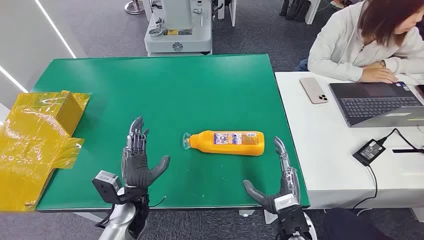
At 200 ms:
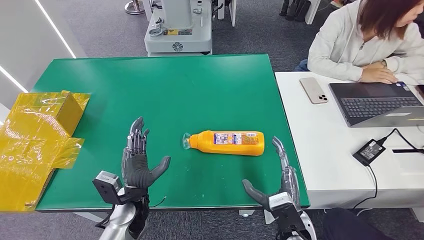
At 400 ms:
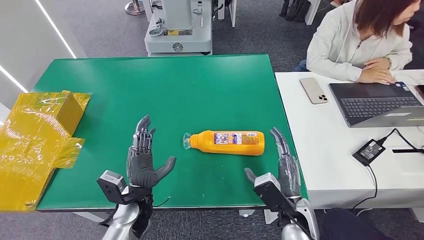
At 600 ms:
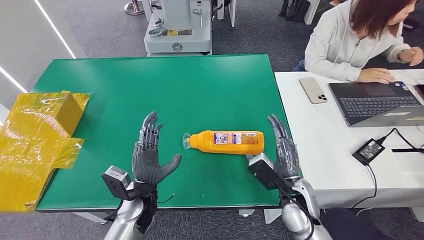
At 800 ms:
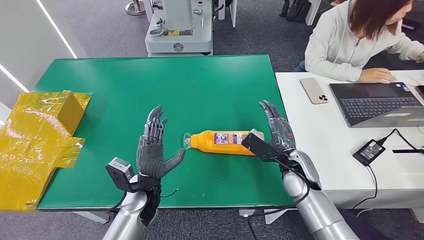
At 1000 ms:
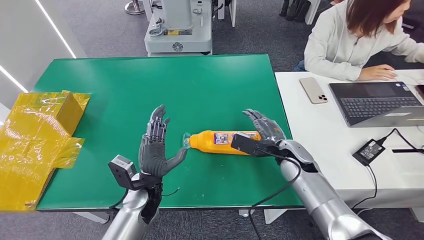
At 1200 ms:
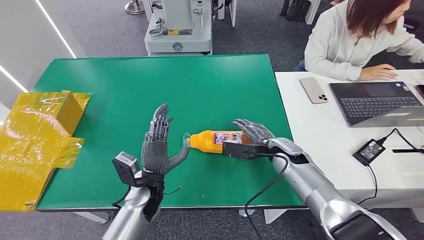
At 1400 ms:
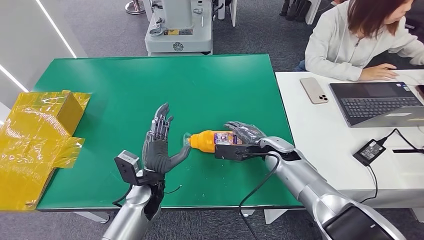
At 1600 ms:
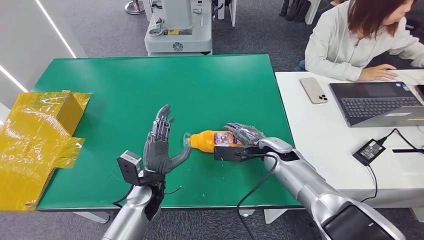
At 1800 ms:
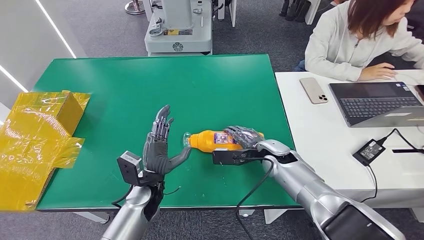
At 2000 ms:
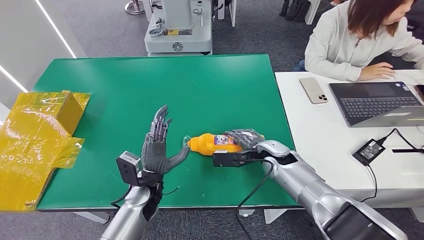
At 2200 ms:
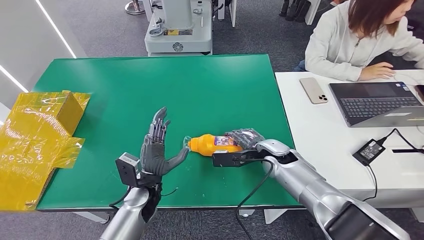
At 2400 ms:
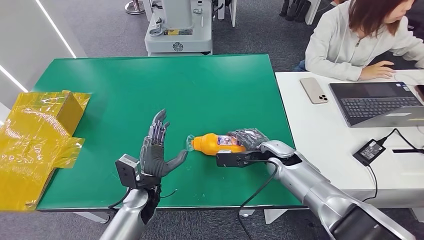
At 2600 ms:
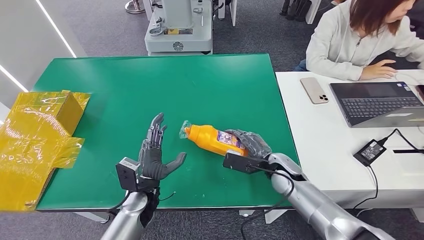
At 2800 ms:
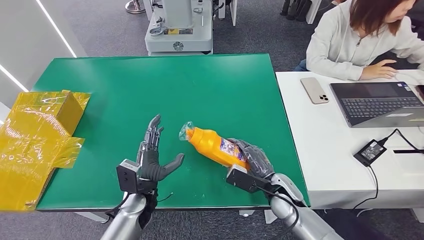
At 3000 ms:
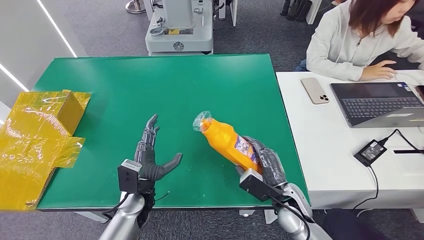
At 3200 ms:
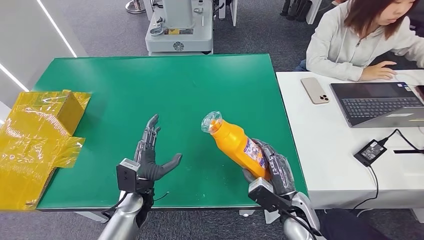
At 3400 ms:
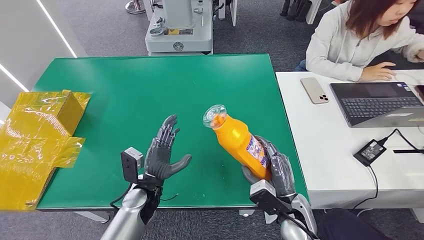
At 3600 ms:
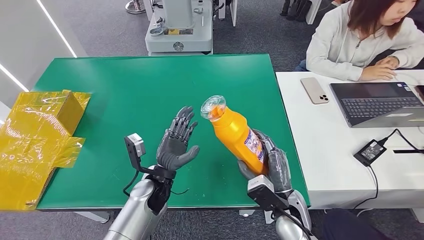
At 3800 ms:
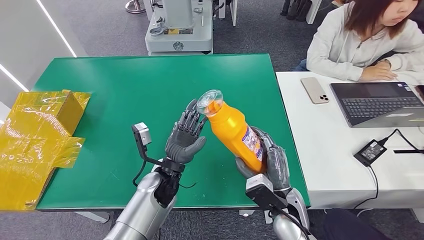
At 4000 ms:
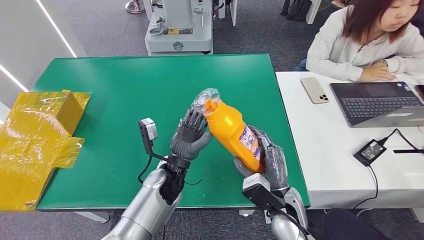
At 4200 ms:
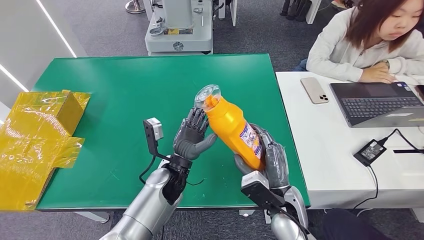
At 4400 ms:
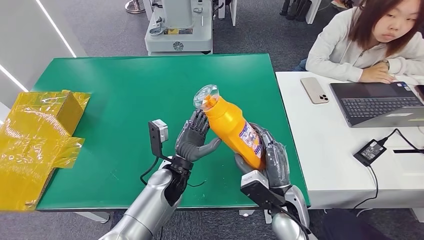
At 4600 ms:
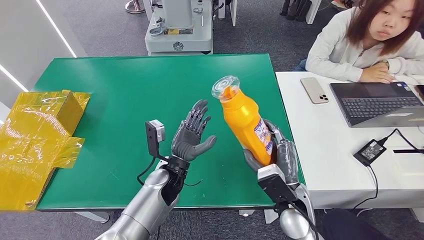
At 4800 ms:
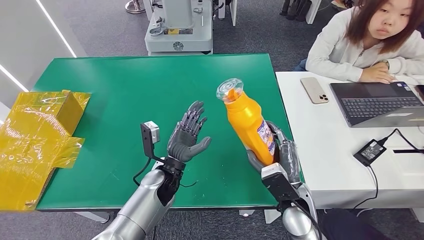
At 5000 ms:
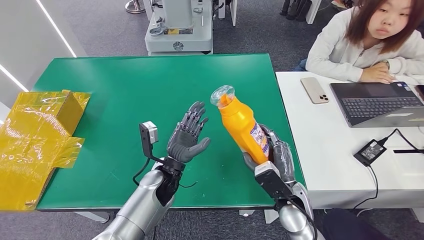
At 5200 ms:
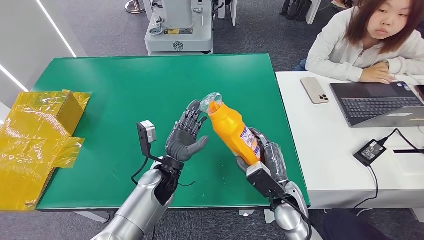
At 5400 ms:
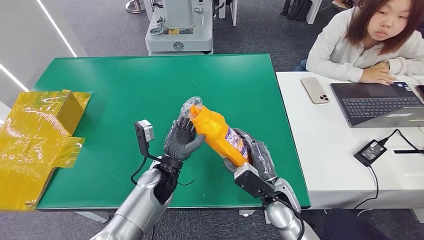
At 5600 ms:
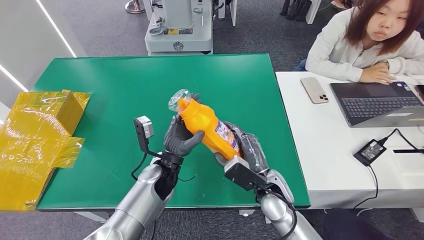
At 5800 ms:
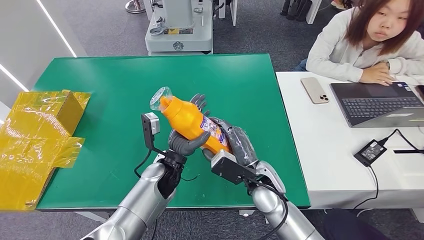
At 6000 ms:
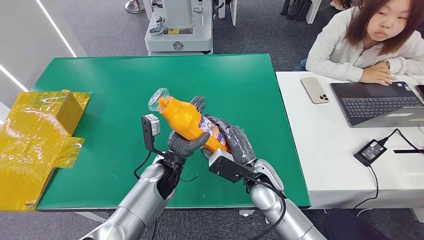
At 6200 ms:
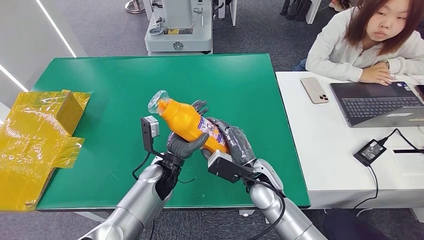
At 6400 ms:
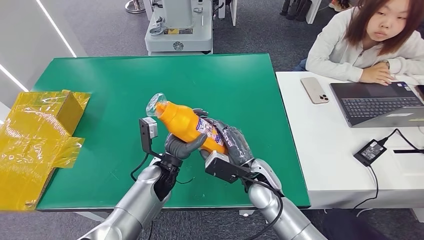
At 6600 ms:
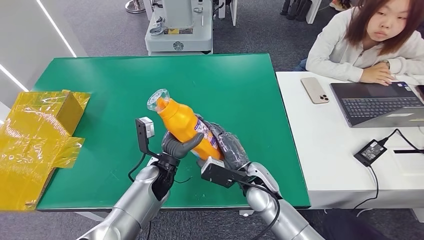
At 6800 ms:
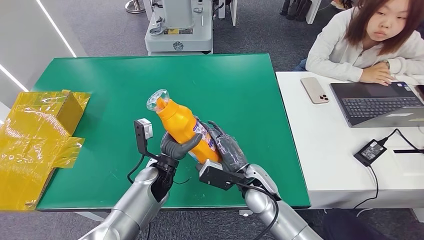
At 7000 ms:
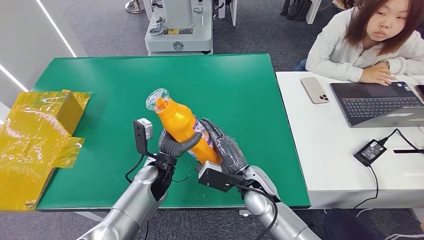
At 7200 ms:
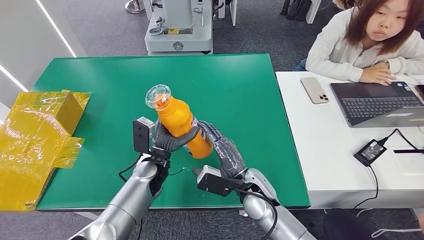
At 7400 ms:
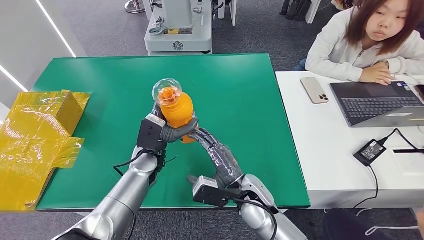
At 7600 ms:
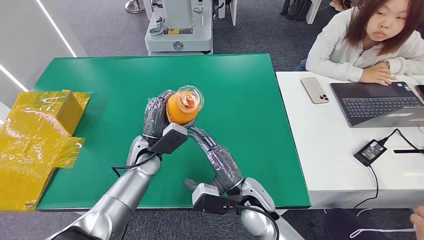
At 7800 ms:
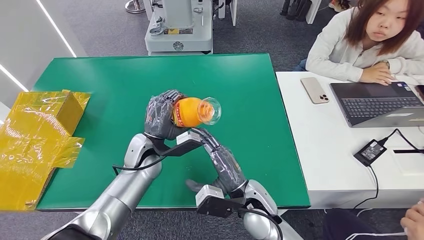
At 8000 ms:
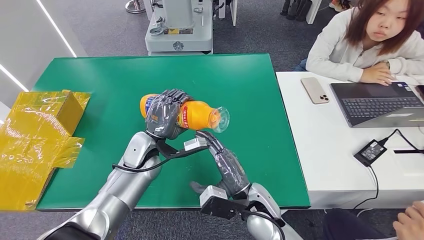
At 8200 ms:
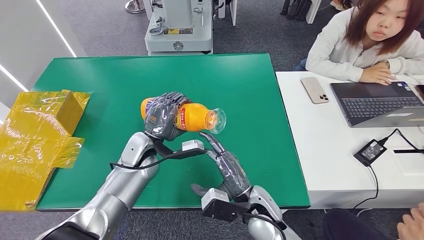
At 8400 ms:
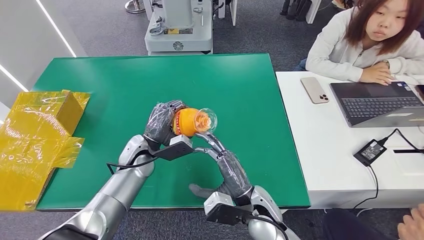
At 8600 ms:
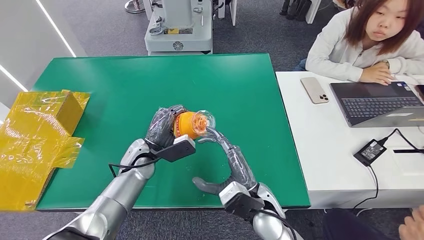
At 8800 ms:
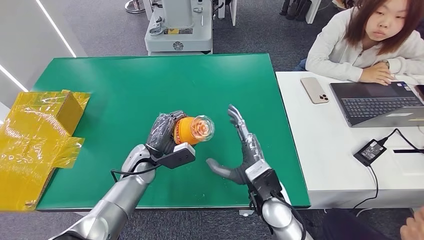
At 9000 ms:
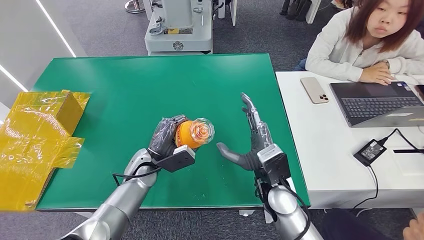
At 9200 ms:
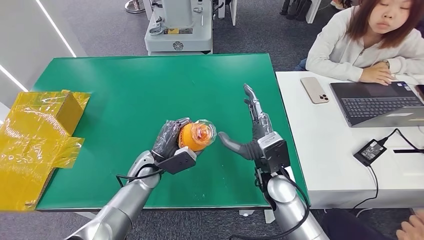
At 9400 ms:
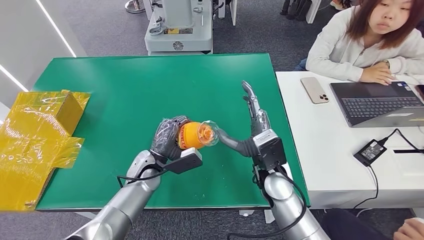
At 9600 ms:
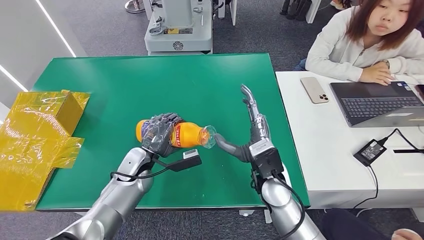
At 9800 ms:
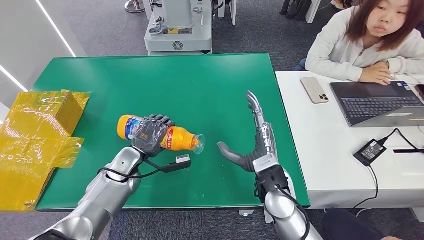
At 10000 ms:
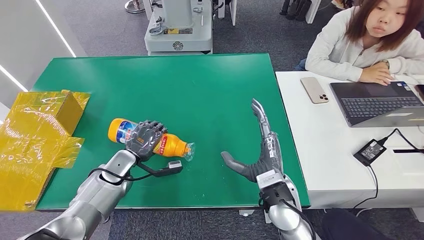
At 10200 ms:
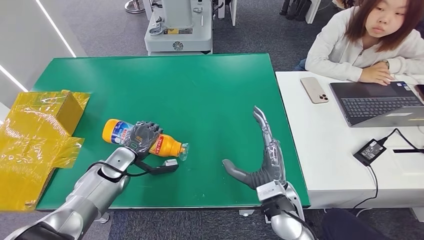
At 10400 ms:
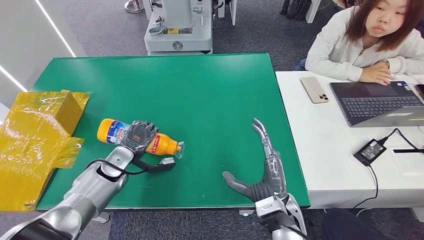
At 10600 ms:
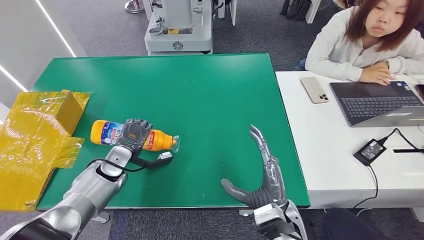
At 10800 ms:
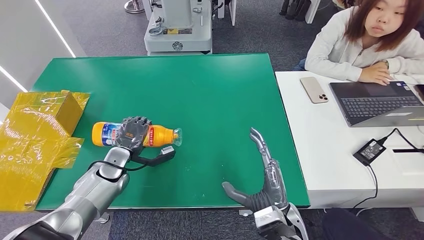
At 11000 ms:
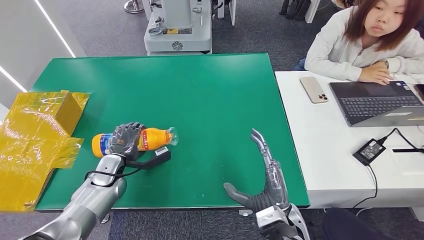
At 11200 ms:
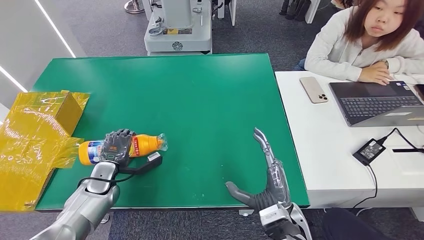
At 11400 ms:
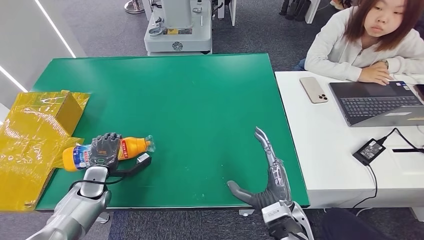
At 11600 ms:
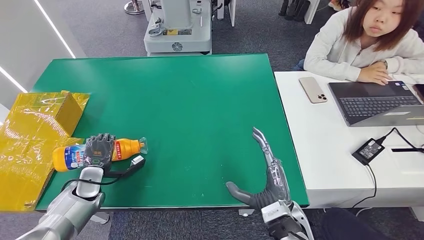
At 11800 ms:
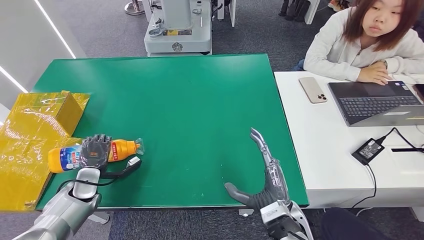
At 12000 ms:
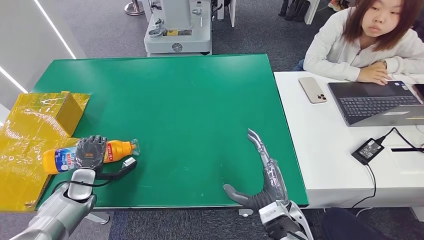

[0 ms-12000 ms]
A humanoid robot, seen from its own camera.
Step, 0 ms to 3000 ms: Pick up the bottle from the table.
1600 ms to 3000 ms: The right hand heads backward, covering roughly 15 cm.
3000 ms to 4400 ms: The right hand travels upward by approximately 5 cm. The left hand goes some 10 cm to the right.
4400 ms to 6000 ms: The right hand goes about 5 cm forward.
6000 ms to 7600 ms: The right hand moves some 5 cm, while the left hand is displaced to the left by some 5 cm.
7600 ms to 9000 ms: The right hand shifts by approximately 5 cm. Meanwhile the left hand shifts by some 5 cm.
9000 ms to 10400 ms: The left hand moves to the left, about 10 cm; the right hand moves backward, about 5 cm.
10400 ms to 12000 ms: The left hand travels to the left, backward and downward by approximately 15 cm.

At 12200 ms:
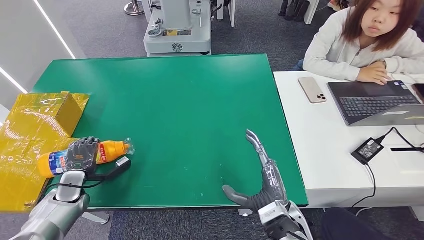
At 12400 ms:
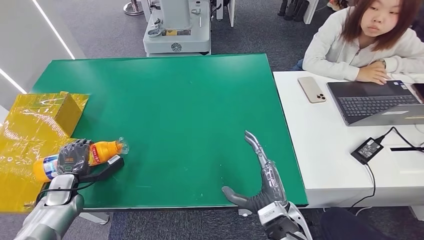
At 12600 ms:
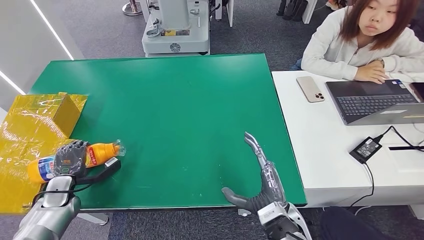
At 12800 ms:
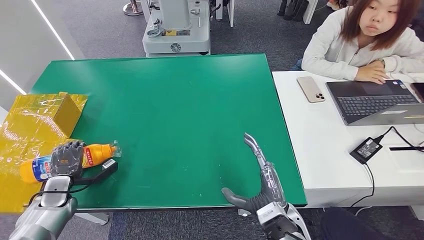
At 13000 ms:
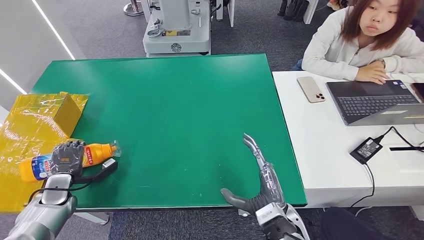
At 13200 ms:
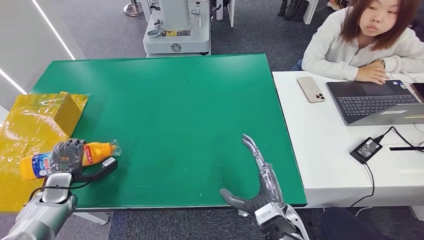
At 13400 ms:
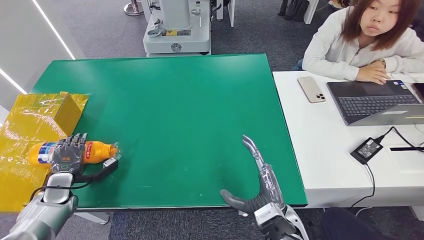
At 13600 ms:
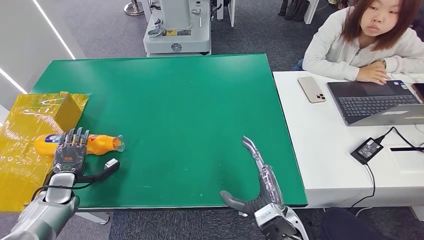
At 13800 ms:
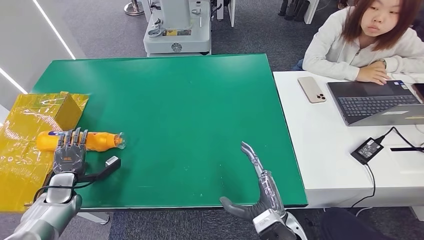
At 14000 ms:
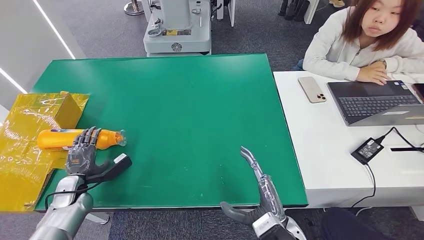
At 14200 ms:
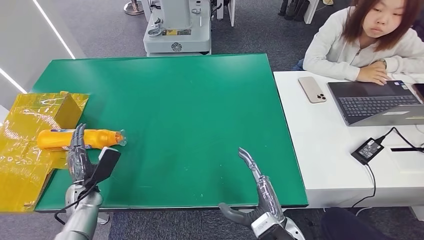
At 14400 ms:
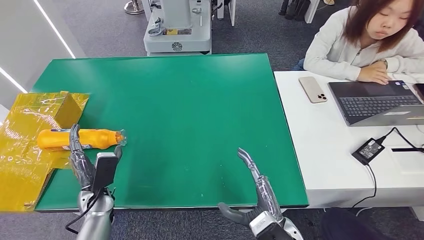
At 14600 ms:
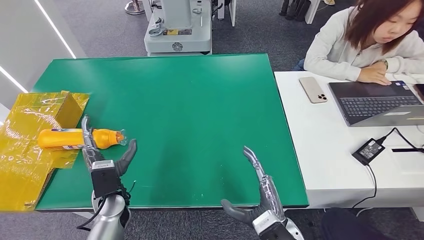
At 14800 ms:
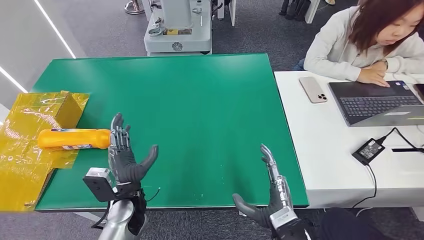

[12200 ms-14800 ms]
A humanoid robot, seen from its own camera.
Step, 12200 ms to 14600 ms: Turn the bottle to the front side.
12200 ms to 13400 ms: There are only small adjustments of the hands.
13400 ms to 14800 ms: The left hand moves to the right, some 25 cm.
